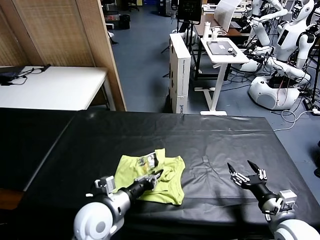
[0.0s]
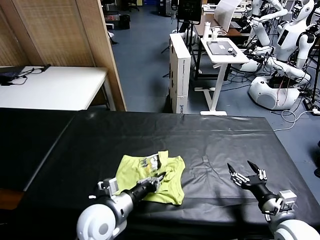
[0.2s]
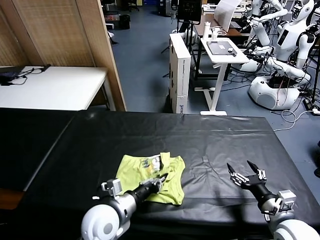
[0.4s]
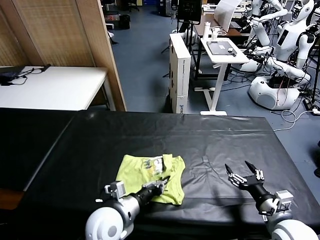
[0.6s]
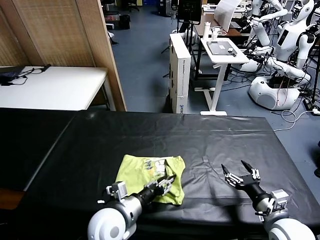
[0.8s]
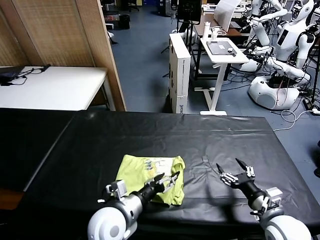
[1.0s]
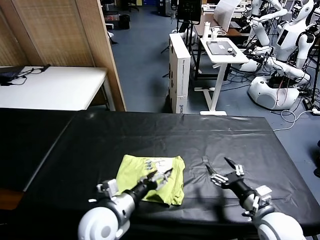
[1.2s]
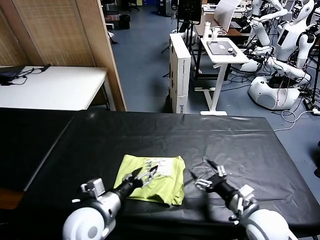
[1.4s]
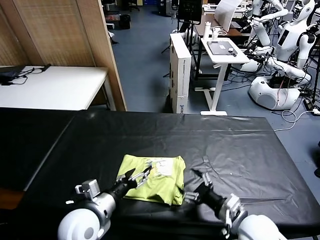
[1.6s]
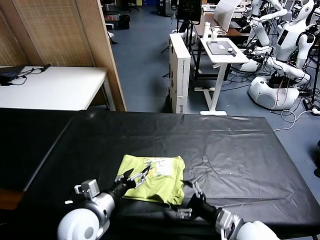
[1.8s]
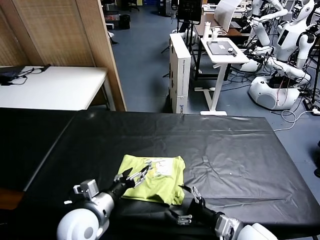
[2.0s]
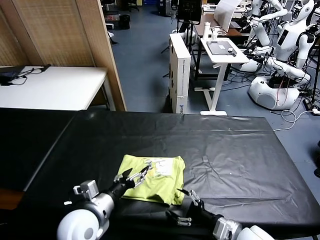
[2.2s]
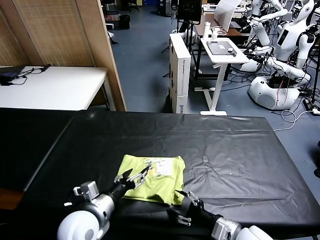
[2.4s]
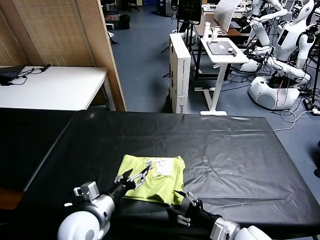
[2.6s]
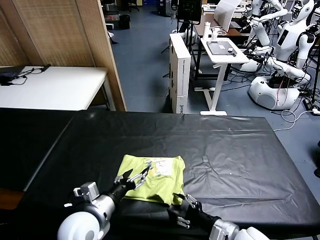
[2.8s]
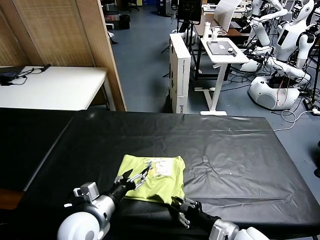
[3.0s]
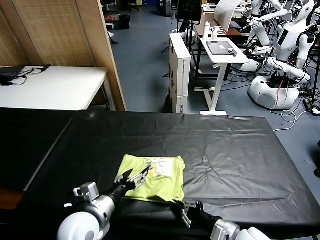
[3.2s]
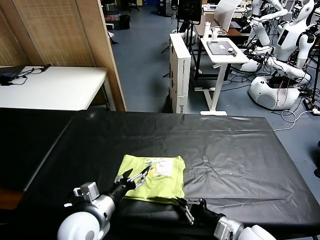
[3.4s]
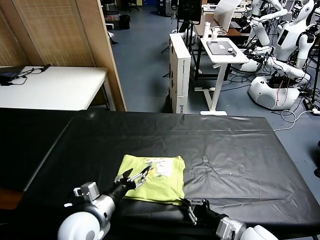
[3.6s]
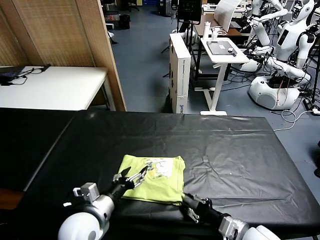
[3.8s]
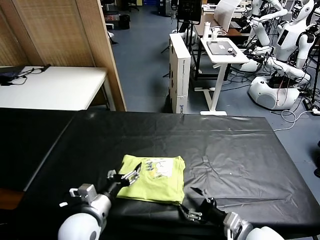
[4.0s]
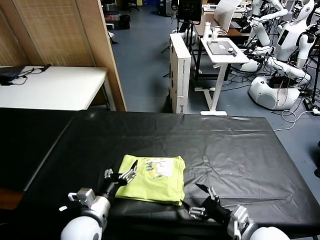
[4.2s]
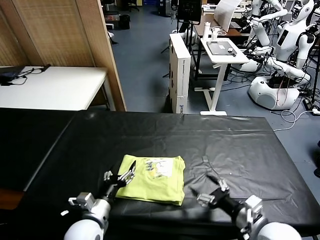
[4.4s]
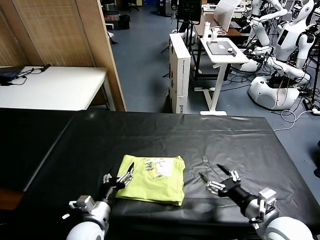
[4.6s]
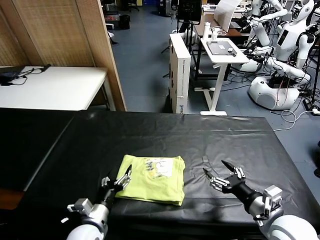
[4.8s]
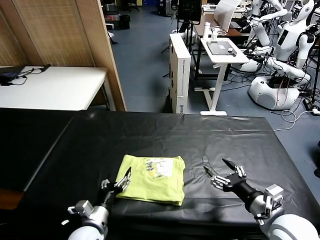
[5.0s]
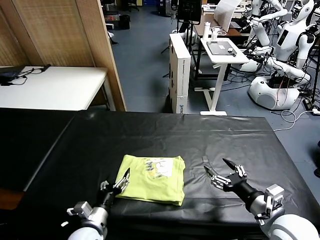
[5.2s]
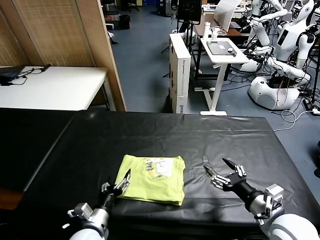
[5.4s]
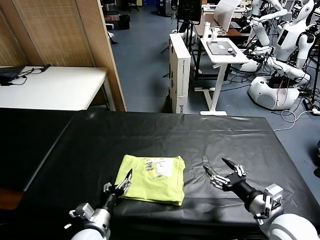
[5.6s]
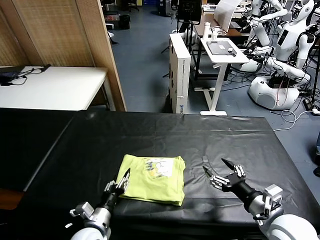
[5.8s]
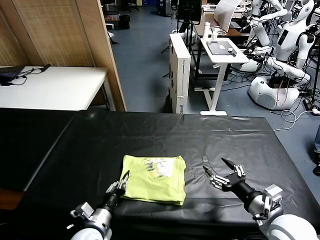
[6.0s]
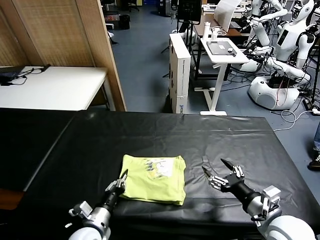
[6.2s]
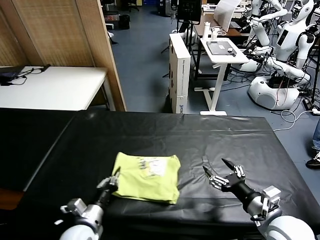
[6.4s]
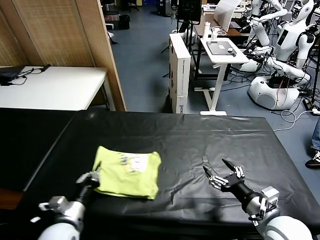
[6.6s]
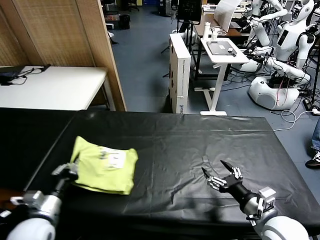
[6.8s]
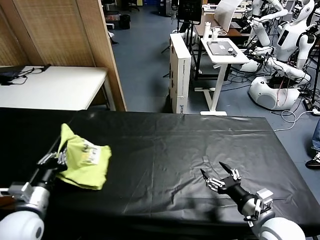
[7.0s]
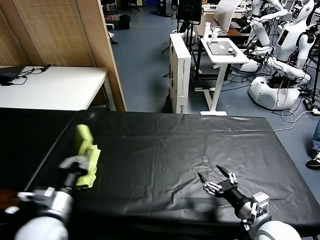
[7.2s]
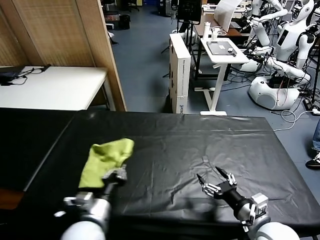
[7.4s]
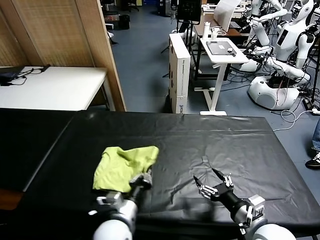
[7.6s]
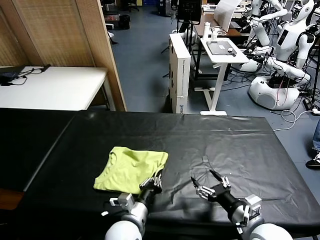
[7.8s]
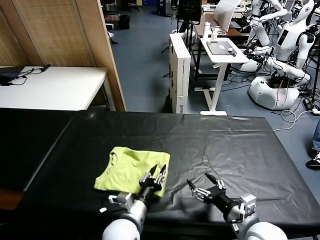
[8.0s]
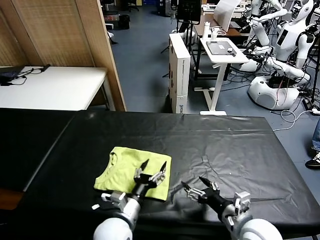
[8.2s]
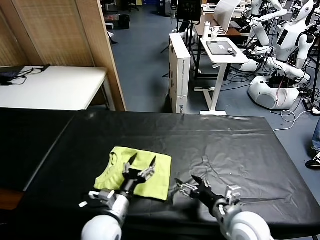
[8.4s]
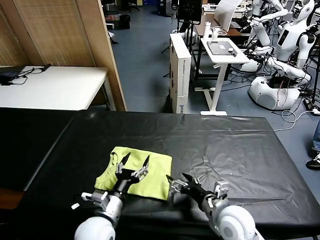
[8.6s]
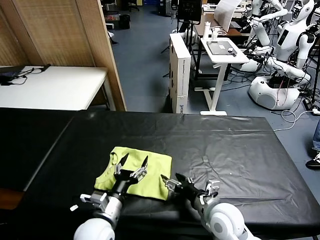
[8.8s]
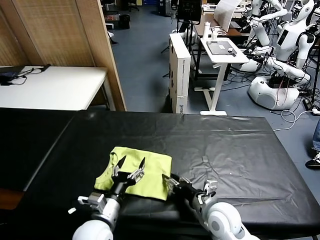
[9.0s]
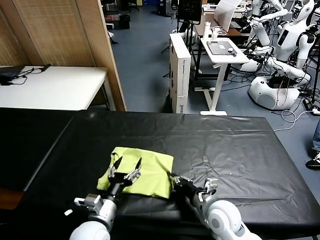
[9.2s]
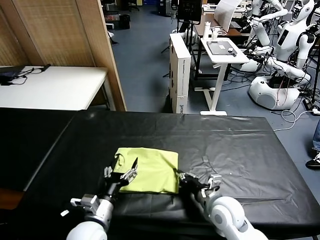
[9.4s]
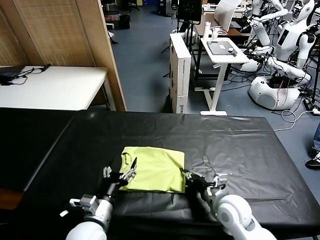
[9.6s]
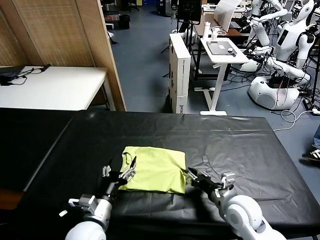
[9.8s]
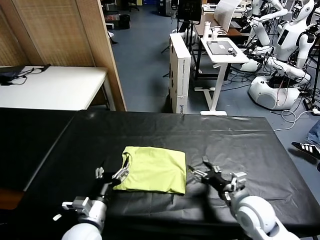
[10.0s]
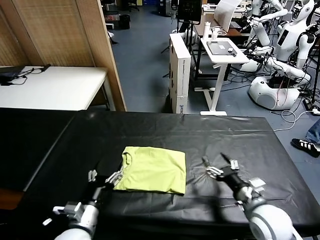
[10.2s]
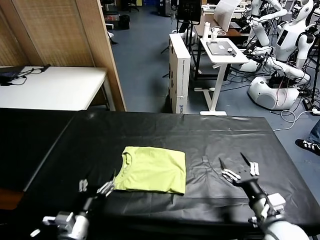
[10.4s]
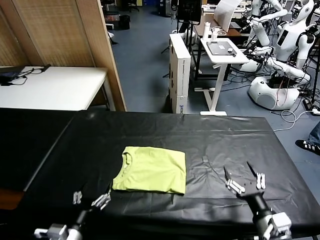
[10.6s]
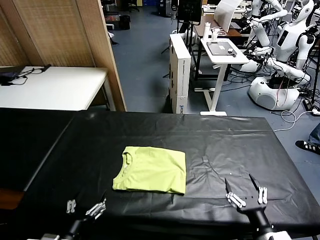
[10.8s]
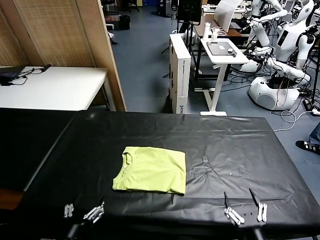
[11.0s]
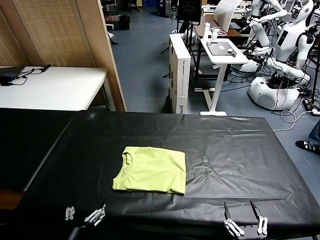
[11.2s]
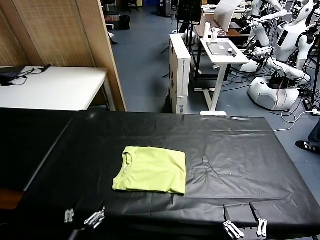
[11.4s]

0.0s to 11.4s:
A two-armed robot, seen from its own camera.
Task of the whole recording: fold and organize the clothes.
Step, 1.2s to 8.0s: Flip the folded clothes over with left gripper.
Step, 8.4s to 9.8s: Drag the clothes to the center of the table.
0.0s to 1.4s: The right gripper shifts roughly 10 cm to the left. Meanwhile the left gripper opens up.
1.4s to 2.8s: The right gripper closes up.
2.8s to 4.2s: The left gripper is displaced downward by roughly 5 cm. The right gripper moves upward, about 5 cm, and opens.
4.2s to 5.6s: The right gripper ends up roughly 5 cm from where it was. Meanwhile the left gripper goes approximately 5 cm downward.
5.6s to 7.2s: The left gripper shifts approximately 10 cm upward, and closes its fingers.
7.2s to 8.6s: The right gripper travels to the left and forward by about 10 cm. The left gripper travels to the right and downward by approximately 10 cm, and opens.
8.6s to 10.0s: The right gripper shifts approximately 5 cm to the right, and closes, then reopens.
10.0s to 11.4s: The left gripper moves backward, about 10 cm, while the right gripper heads backward, covering approximately 20 cm.

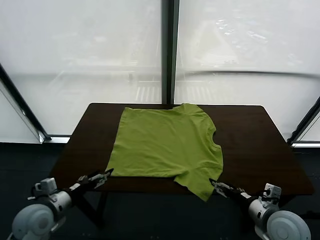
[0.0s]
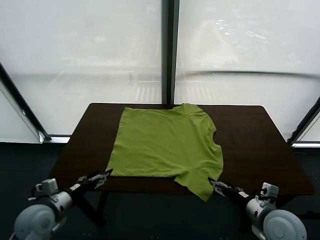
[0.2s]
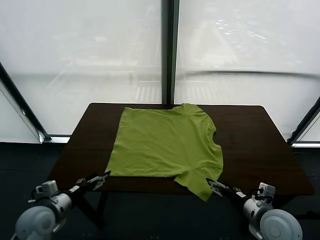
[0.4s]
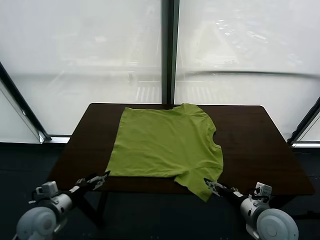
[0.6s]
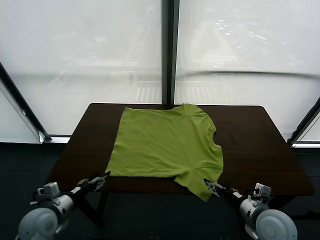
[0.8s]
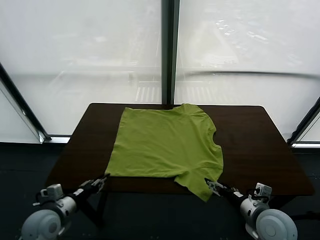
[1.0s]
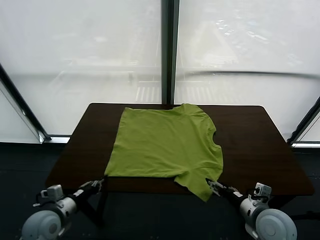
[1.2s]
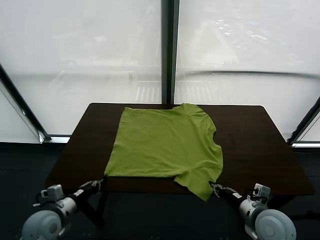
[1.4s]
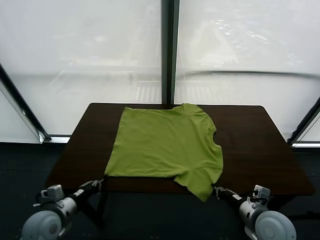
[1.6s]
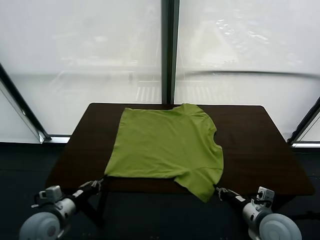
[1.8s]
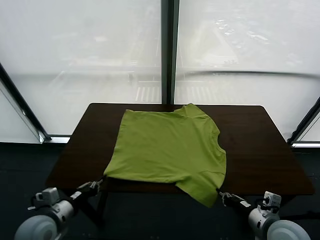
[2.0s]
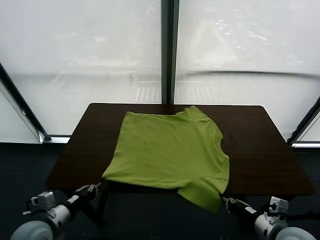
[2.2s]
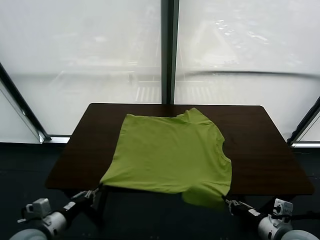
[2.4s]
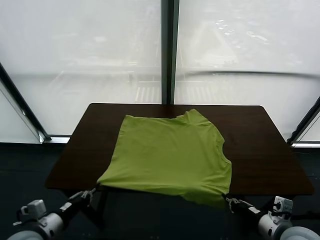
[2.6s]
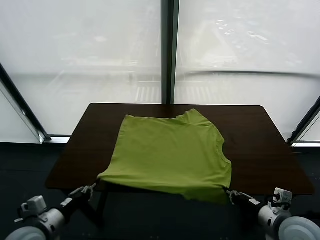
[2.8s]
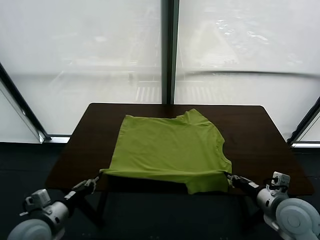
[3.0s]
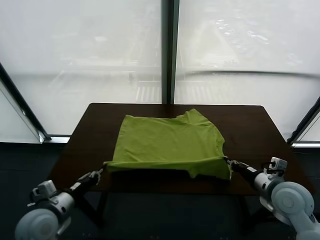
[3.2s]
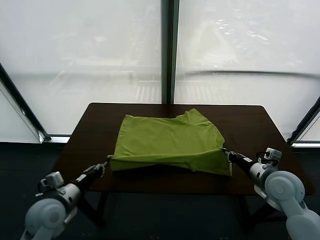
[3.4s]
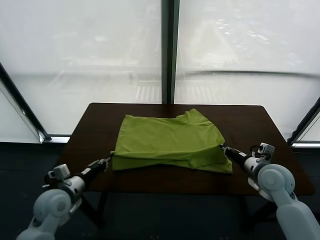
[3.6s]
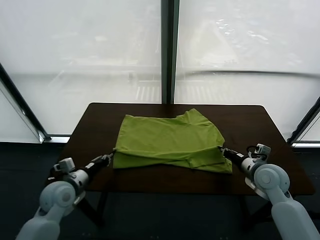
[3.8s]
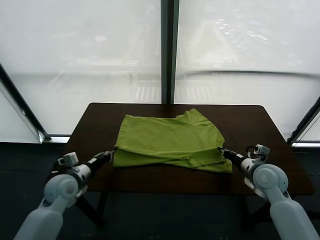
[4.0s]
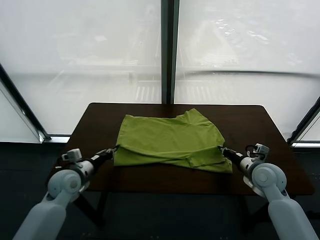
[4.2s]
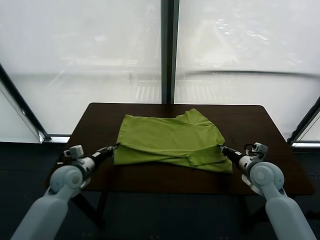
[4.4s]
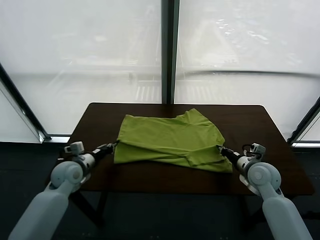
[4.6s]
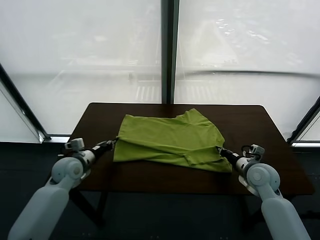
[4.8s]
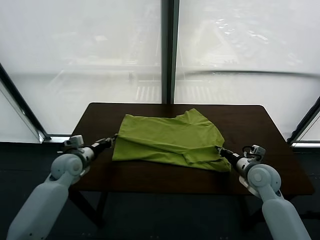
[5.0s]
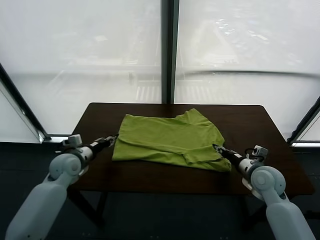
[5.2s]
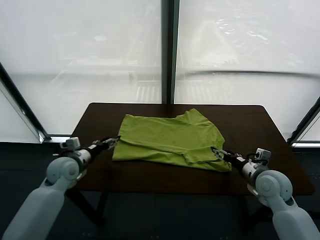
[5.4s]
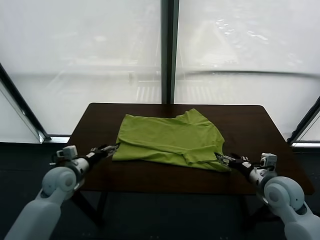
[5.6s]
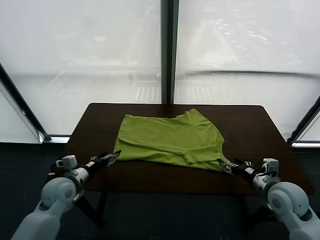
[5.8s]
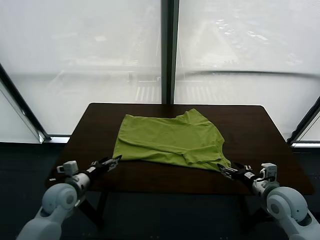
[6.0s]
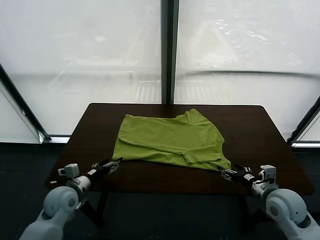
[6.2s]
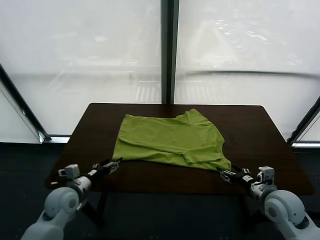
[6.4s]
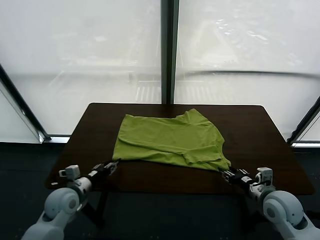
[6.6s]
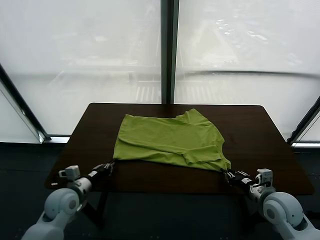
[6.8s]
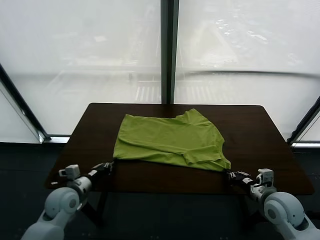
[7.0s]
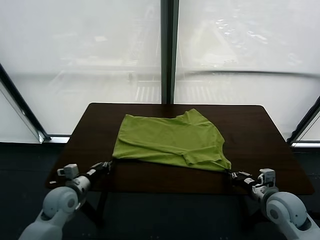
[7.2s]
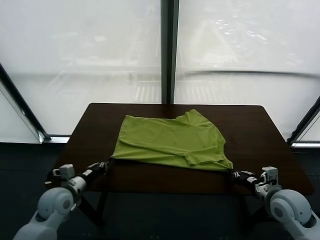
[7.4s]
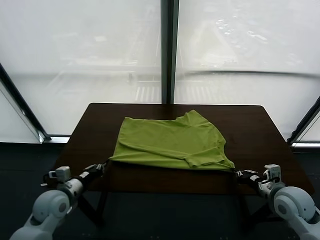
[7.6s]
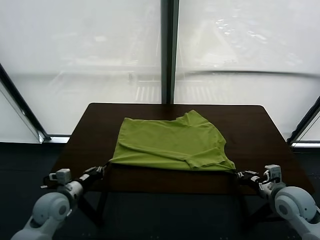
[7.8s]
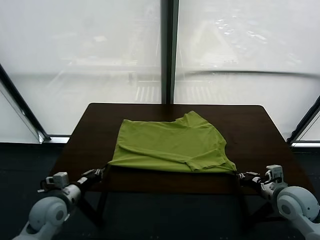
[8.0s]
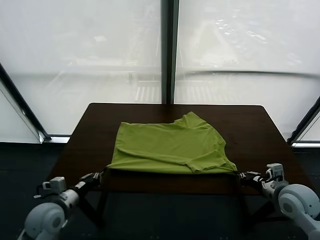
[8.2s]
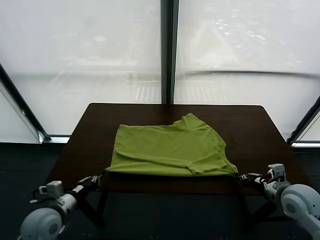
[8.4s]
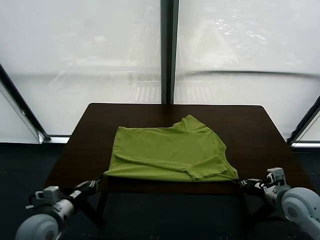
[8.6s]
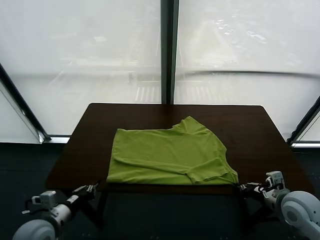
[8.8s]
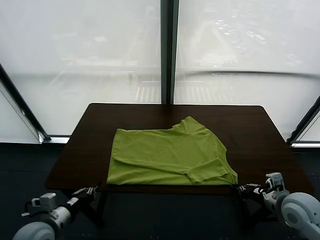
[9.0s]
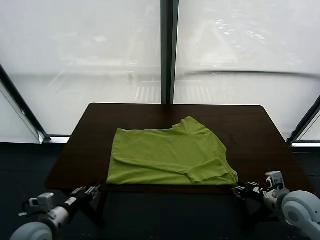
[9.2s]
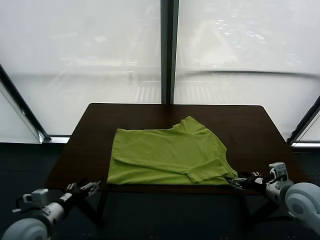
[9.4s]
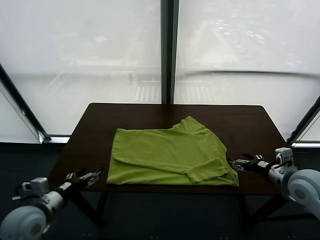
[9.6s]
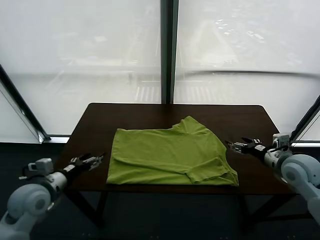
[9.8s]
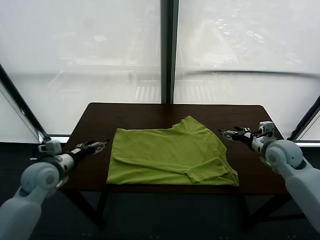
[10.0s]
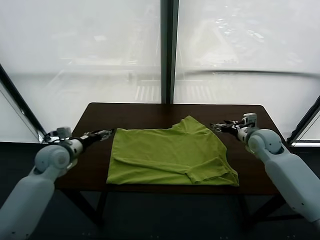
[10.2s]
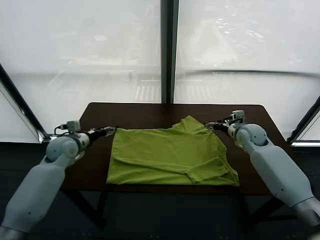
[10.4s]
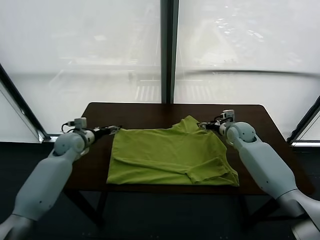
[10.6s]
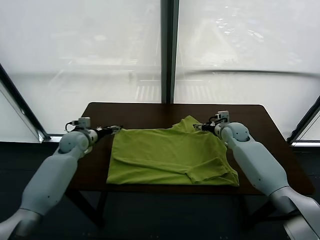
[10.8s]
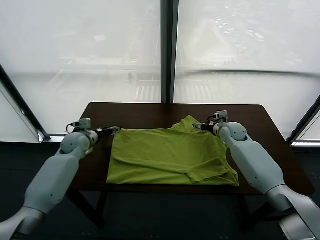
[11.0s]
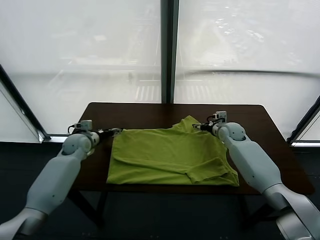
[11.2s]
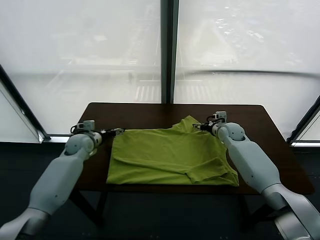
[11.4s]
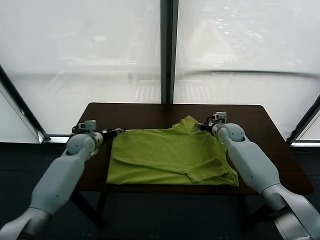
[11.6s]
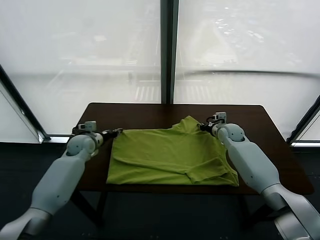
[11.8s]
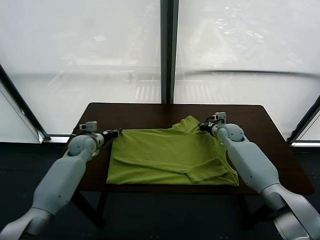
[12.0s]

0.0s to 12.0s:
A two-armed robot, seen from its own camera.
Task of the whole recording: fold and organize the clothes.
Step, 0.0s to 1.6s: use both grippers simultaneously to clamp the lower edge of the clothing fabric.
Step, 1.8s to 5.2s: use both grippers to drag the lower edge of the fabric forward and fold it over the upper edge.
Step, 5.6s to 9.2s: Drag the clothes downward with both gripper.
1.6s to 3.0s: The right gripper is displaced forward by some 10 cm.
3.0s to 4.4s: The right gripper heads forward and downward, covering about 10 cm; the left gripper heads forward, covering some 15 cm.
4.4s to 6.0s: Both grippers travel together backward, about 10 cm. The left gripper opens, while the right gripper opens.
6.0s to 7.6s: The right gripper closes, while the left gripper closes up.
7.6s to 9.0s: The right gripper opens. Meanwhile the left gripper is displaced backward by some 10 cm.
9.0s to 10.4s: The grippers both shift forward by approximately 30 cm. The left gripper opens its fingers. The right gripper opens.
10.4s to 12.0s: The right gripper closes up. Meanwhile the left gripper shifts by roughly 5 cm, and closes.
